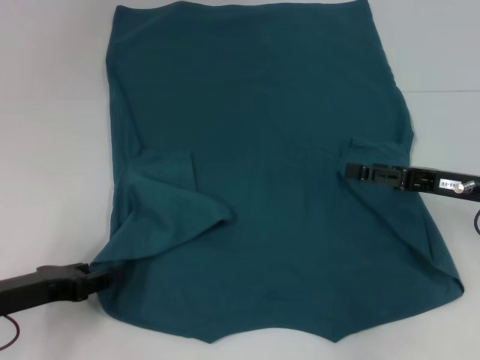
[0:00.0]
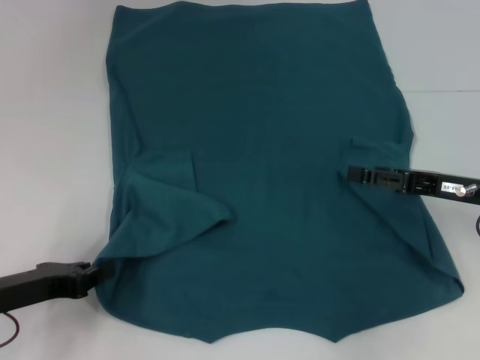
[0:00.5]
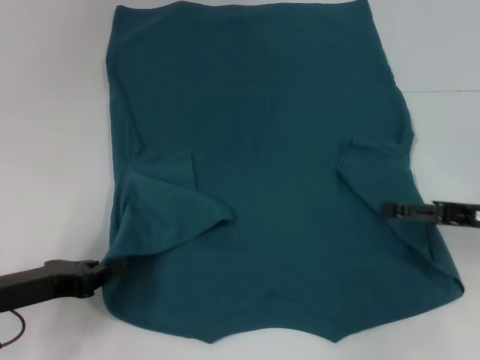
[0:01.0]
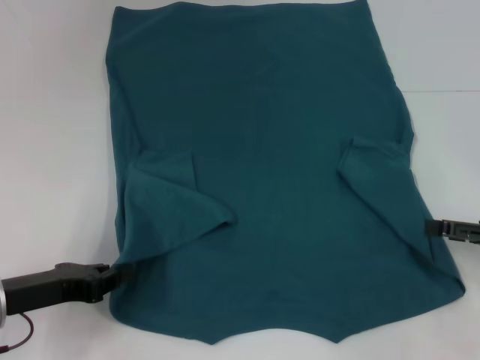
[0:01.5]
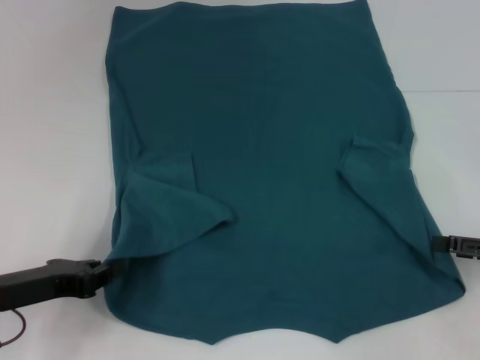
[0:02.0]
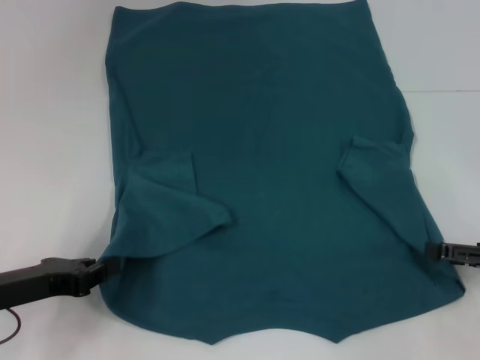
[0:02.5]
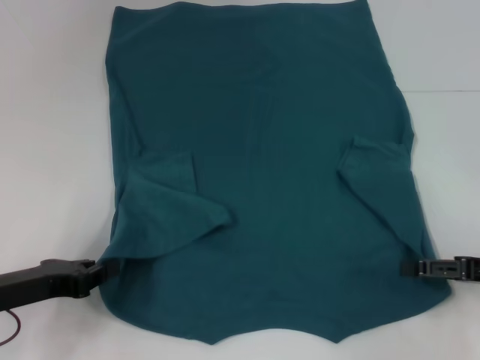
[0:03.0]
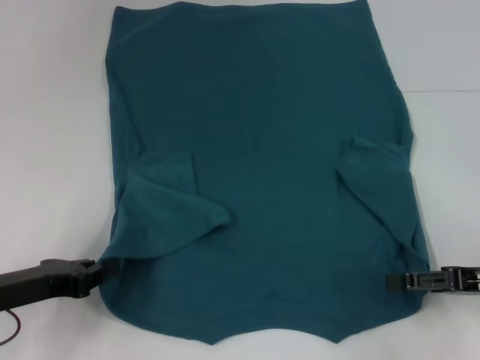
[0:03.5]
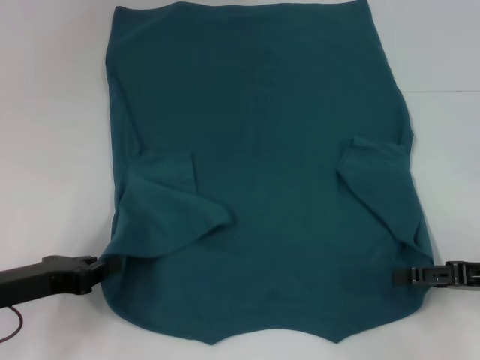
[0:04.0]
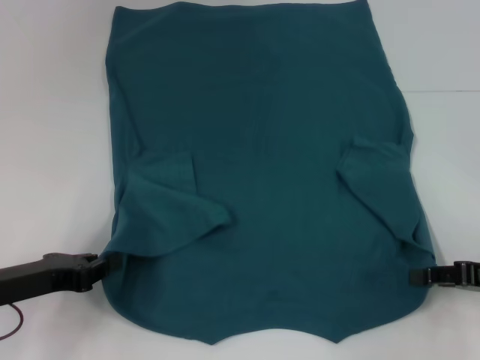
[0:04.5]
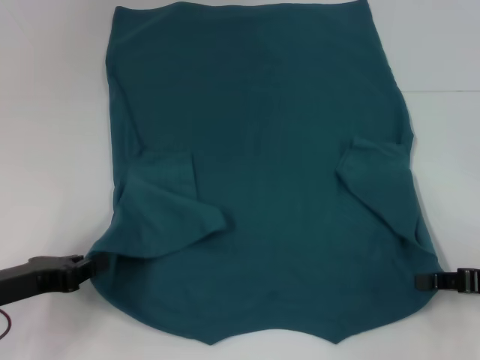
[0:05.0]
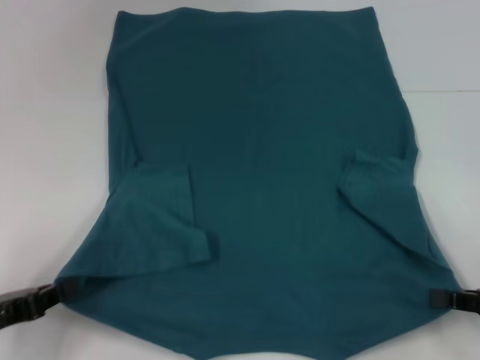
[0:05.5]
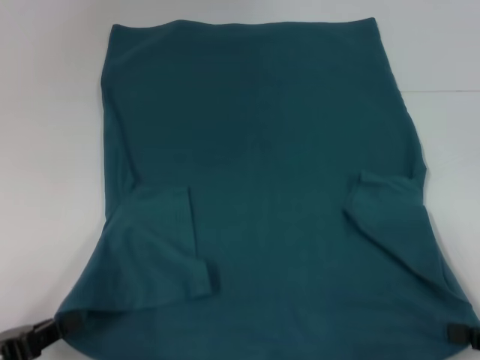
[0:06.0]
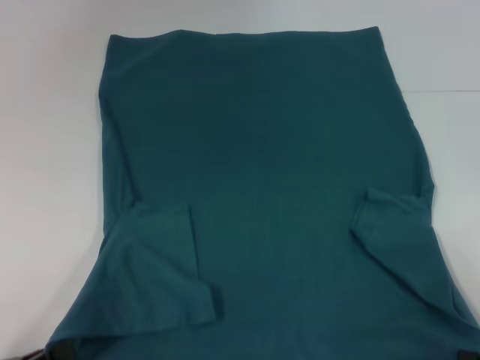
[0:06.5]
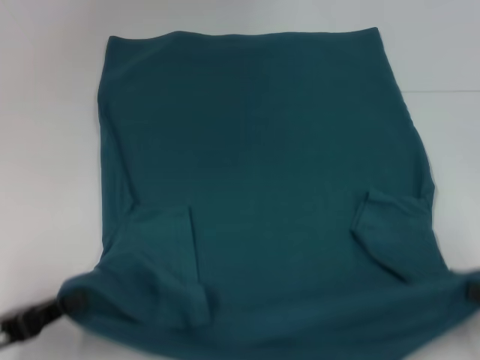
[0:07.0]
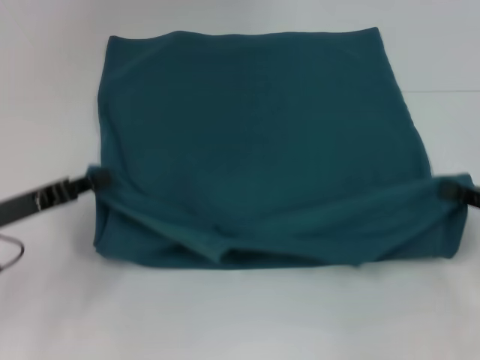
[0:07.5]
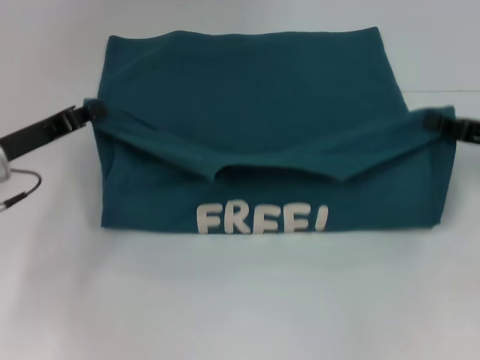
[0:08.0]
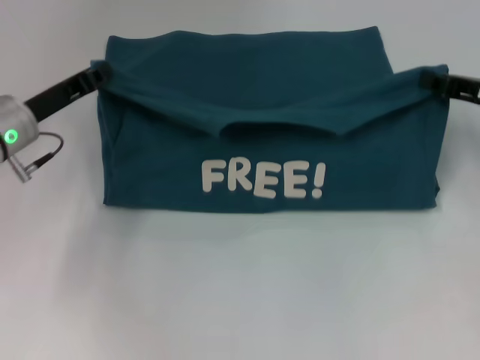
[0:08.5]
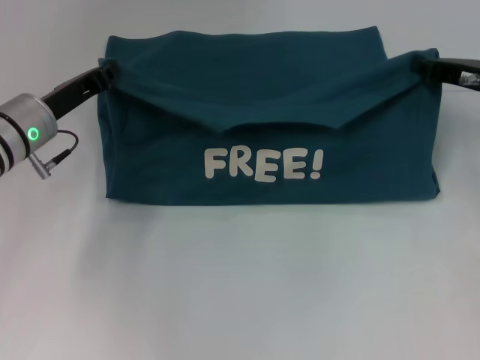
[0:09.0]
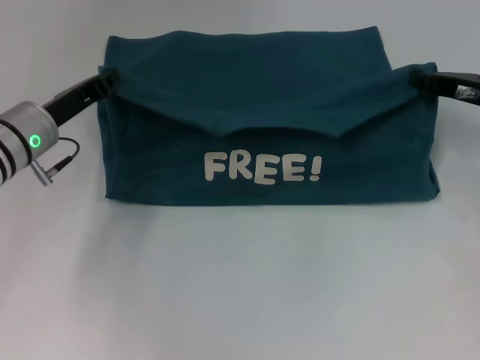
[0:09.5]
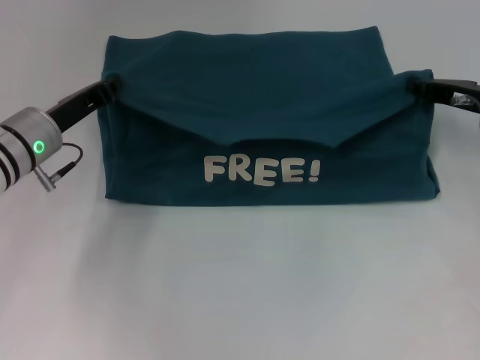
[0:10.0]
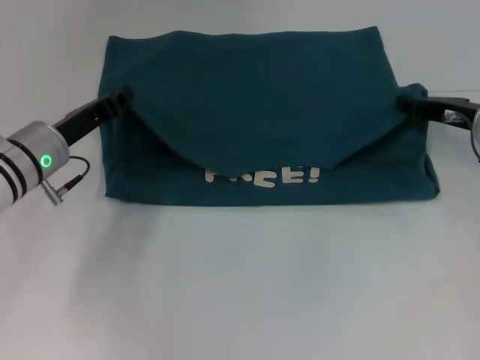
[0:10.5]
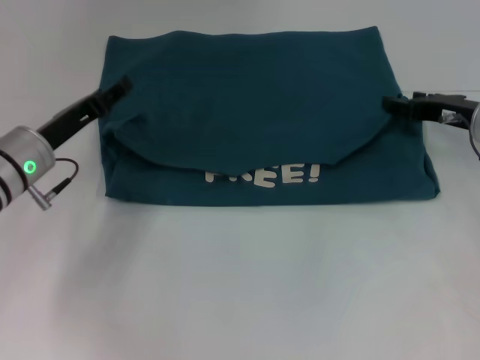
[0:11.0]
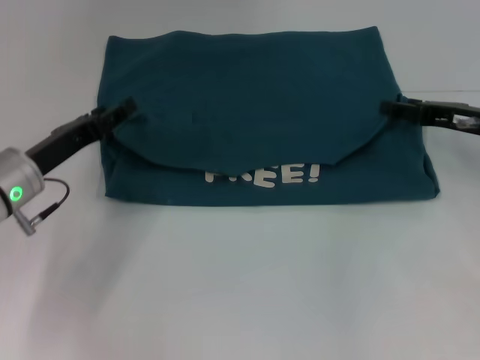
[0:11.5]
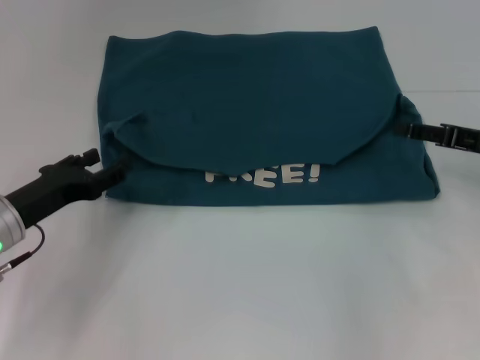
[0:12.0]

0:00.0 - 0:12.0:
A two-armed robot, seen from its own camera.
Step, 0:01.5 - 0:04.5: Grab the bottom right corner with your right hand.
Step, 0:05.0 - 0:11.0: Fold the clothes to the left.
Step, 0:05.0 - 0:11.0: Fold the clothes to the right.
0:00.0 - 0:02.0: The left gripper closes; the right gripper is displaced to the right and backward by approximately 10 cm.
0:02.0 - 0:04.0: The grippers move only a little.
0:04.0 - 0:06.0: The two grippers go some 10 cm backward. The right gripper closes its fingers.
0:06.0 - 0:08.0: The grippers both shift forward by approximately 20 cm.
0:08.0 - 0:10.0: The left gripper changes place by approximately 5 cm; the right gripper goes approximately 5 cm forward.
0:10.0 - 0:12.0: The two grippers go some 5 cm backward. The right gripper opens, while the left gripper opens up.

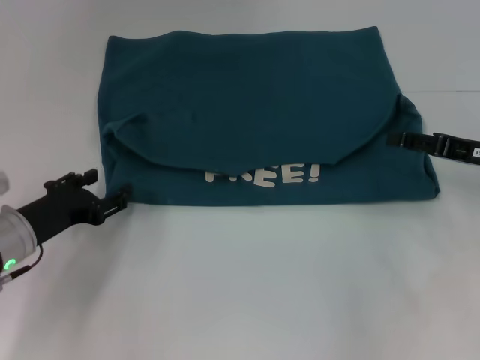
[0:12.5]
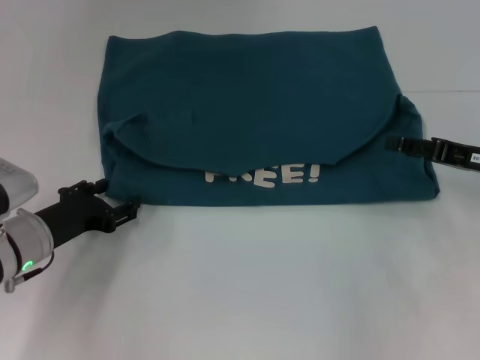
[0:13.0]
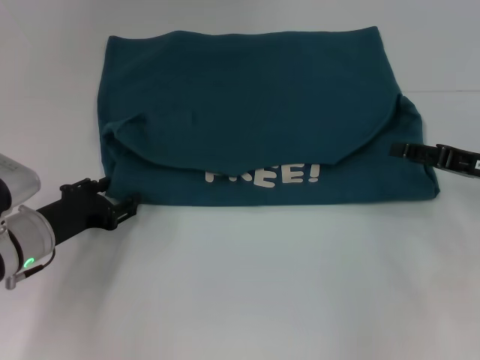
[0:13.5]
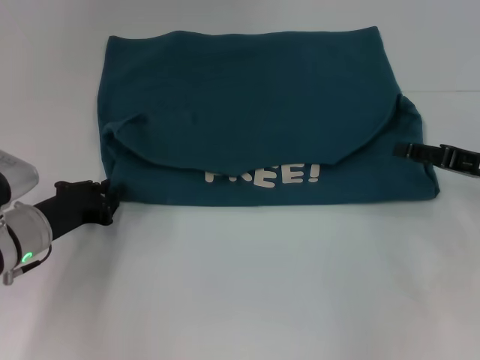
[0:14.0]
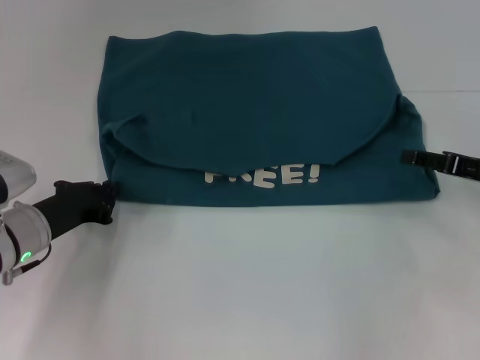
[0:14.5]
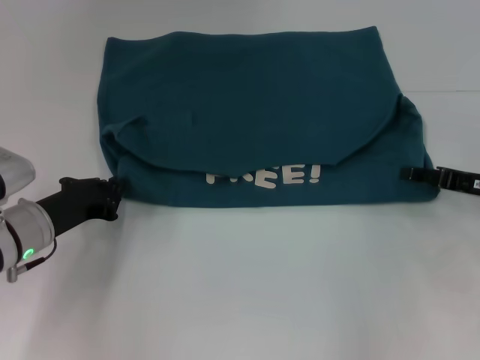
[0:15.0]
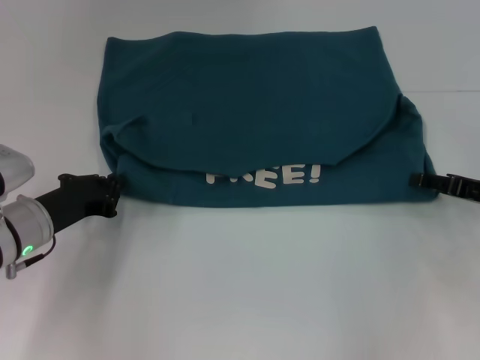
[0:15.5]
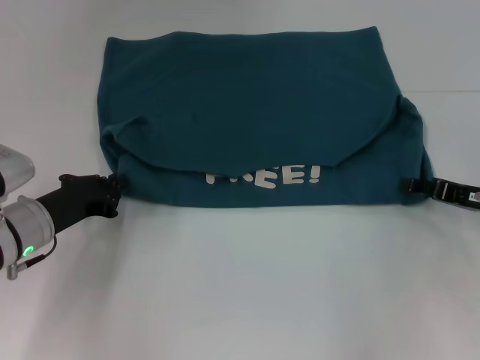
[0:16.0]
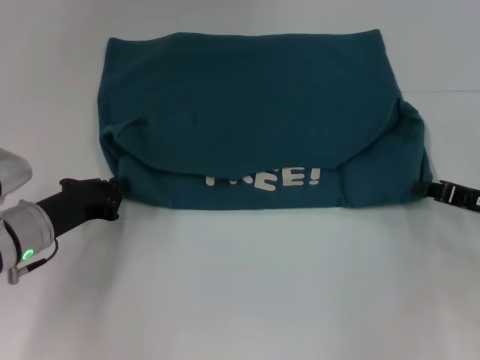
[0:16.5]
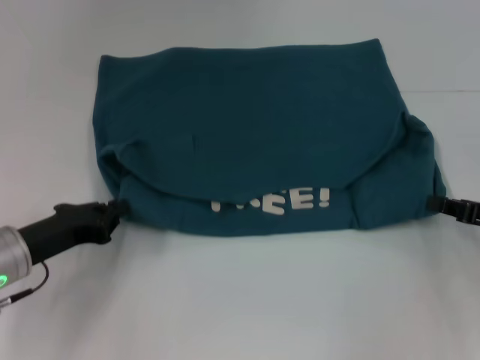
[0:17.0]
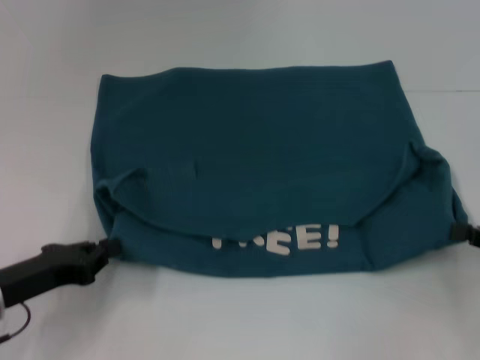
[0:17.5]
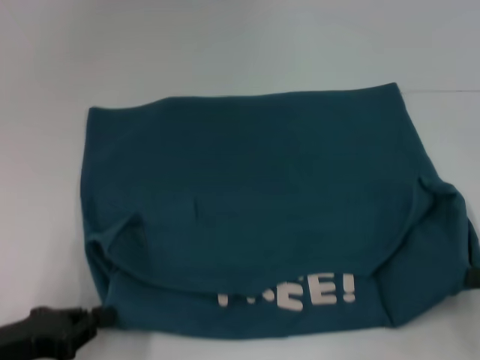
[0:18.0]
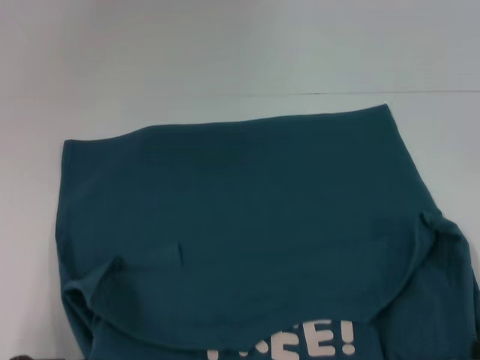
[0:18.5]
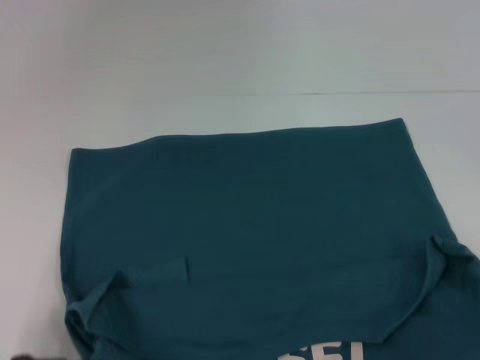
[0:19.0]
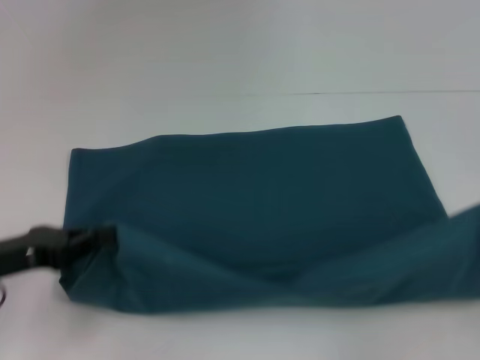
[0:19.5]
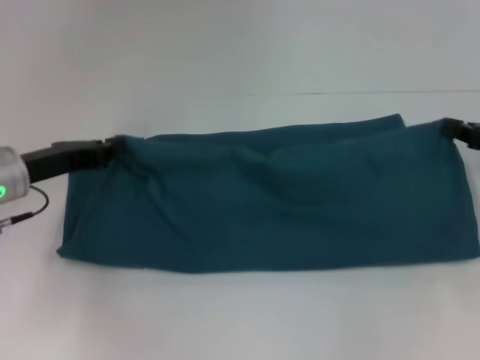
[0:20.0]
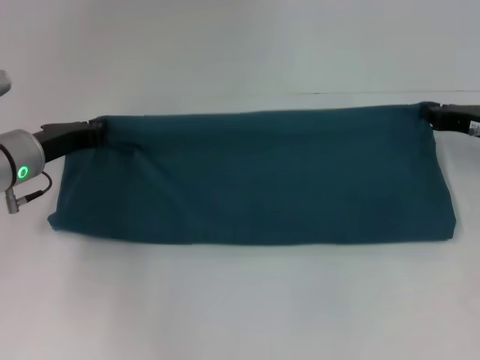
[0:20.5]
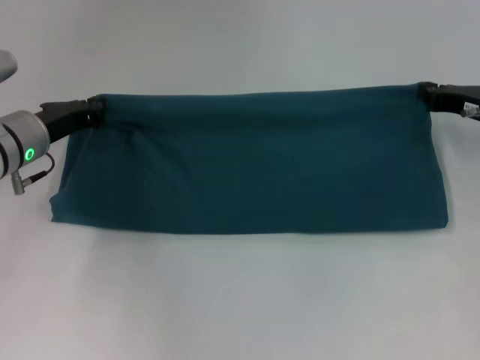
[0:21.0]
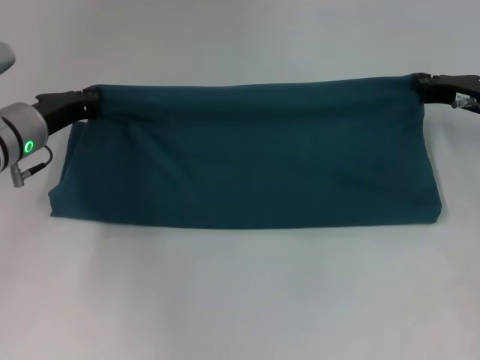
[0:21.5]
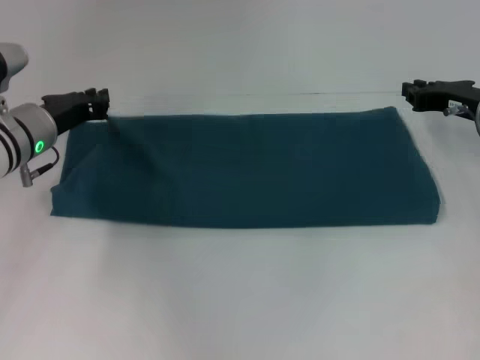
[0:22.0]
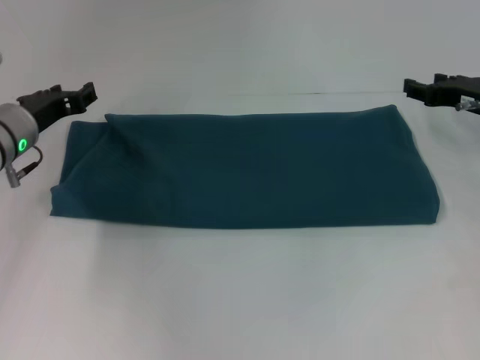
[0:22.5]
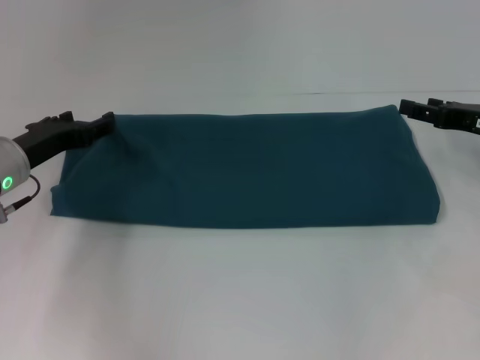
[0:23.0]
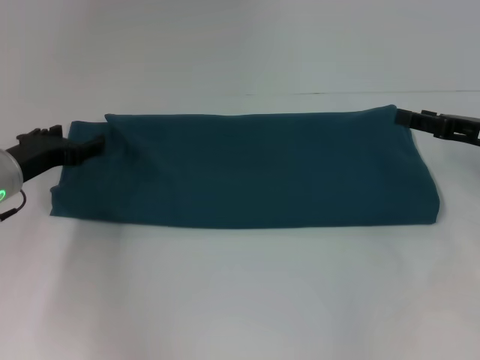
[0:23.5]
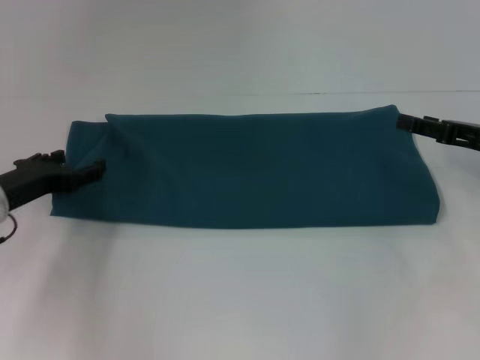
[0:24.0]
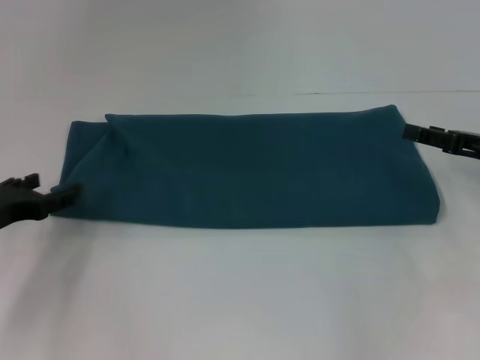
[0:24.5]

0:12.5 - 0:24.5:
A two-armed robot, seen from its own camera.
Step, 0:12.5 - 0:18.5: Pull the clothes with your left hand.
Step, 0:12.5 - 0:18.5: Pull the clothes with your right hand.
Step, 0:19.0 - 0:21.5: Fold the clothes to the right.
0:12.5 - 0:14.5: The left gripper closes up.
0:14.5 - 0:16.5: The right gripper closes.
0:16.5 - 0:18.5: Both grippers travel together backward, about 15 cm.
0:18.5 - 0:20.5: The two grippers go some 25 cm forward.
0:20.5 - 0:22.5: The right gripper opens its fingers; the left gripper opens.
0:22.5 - 0:24.5: The left gripper goes approximately 15 cm backward and to the left, and opens. Meanwhile the right gripper heads backward, covering roughly 5 cm.

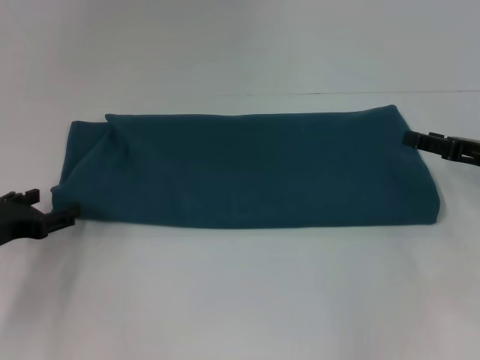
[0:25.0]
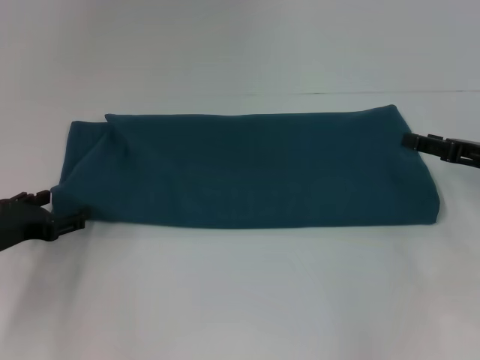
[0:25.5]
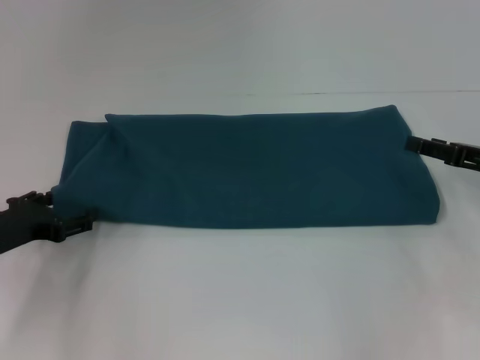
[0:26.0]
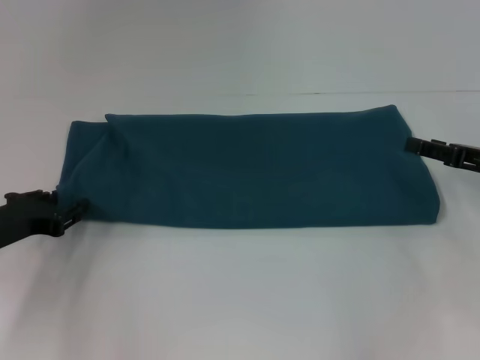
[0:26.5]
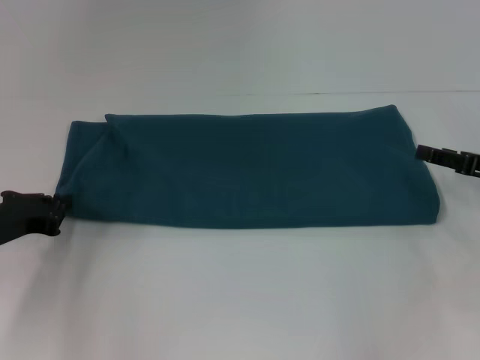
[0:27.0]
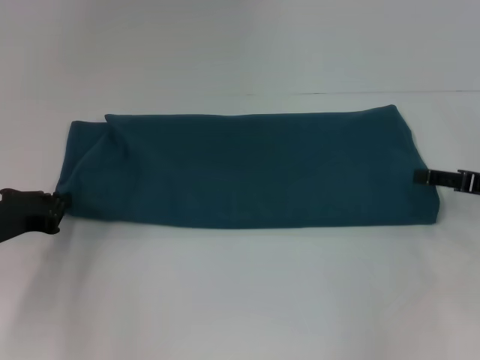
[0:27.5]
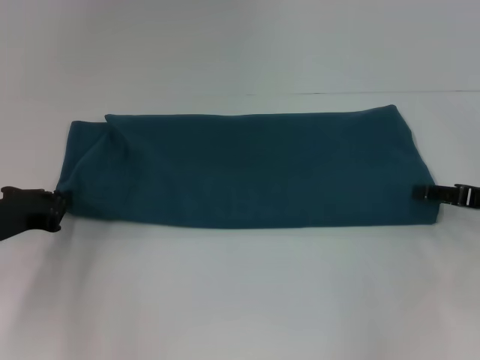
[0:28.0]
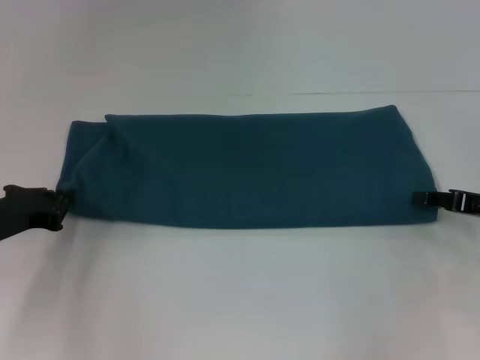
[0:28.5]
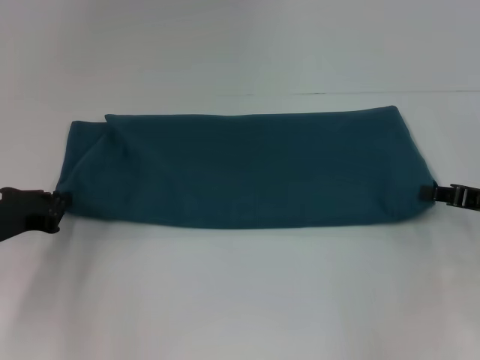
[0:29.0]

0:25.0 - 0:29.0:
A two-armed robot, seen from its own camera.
0:27.0 - 0:29.0: The right gripper closes its fingers.
